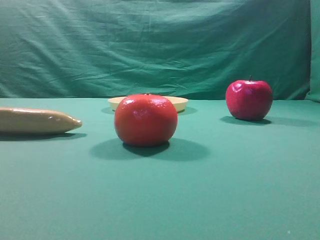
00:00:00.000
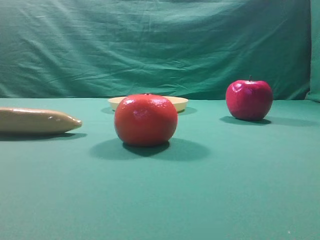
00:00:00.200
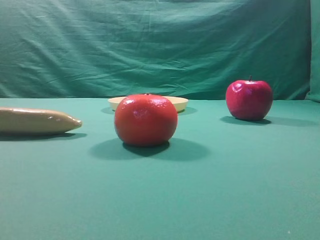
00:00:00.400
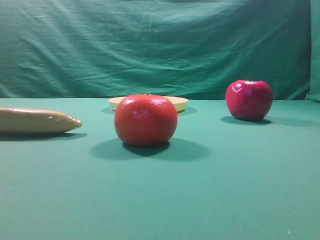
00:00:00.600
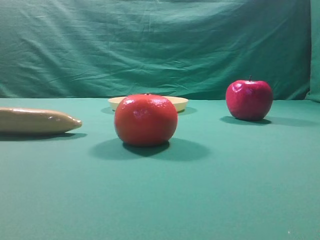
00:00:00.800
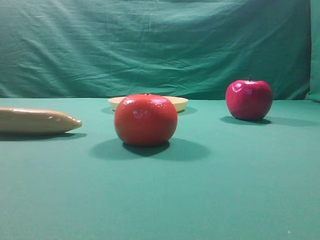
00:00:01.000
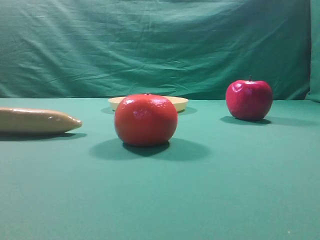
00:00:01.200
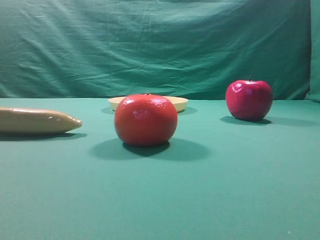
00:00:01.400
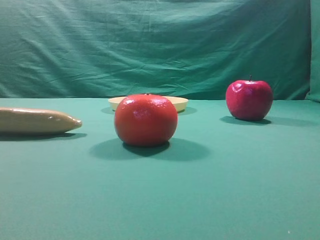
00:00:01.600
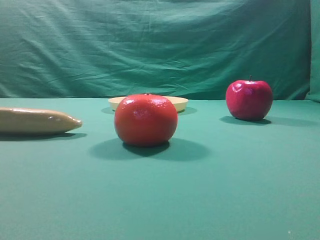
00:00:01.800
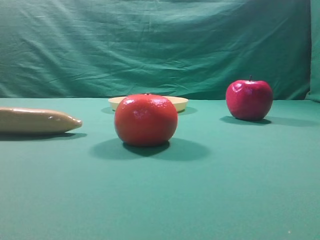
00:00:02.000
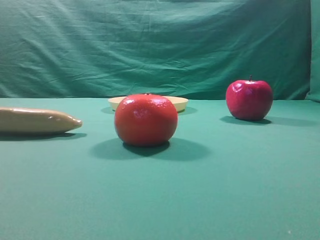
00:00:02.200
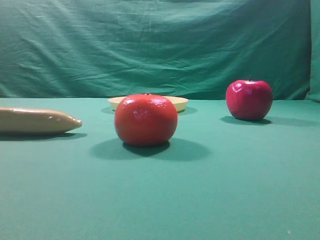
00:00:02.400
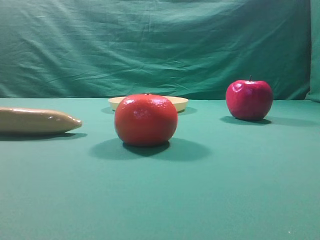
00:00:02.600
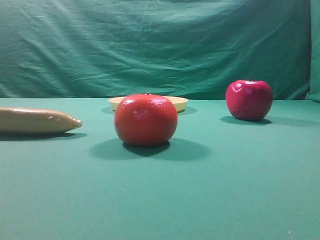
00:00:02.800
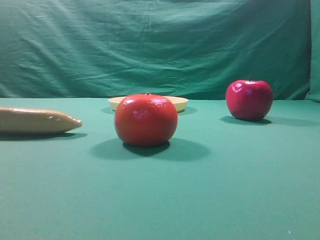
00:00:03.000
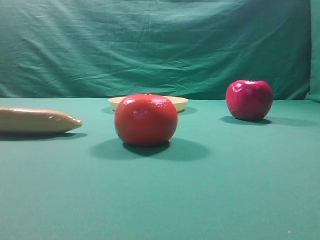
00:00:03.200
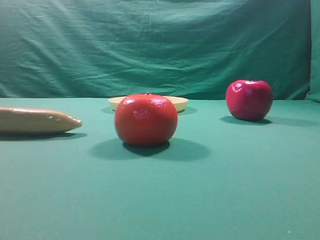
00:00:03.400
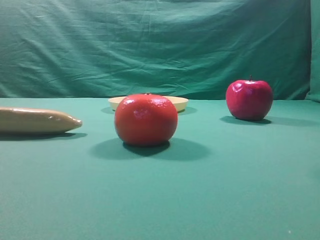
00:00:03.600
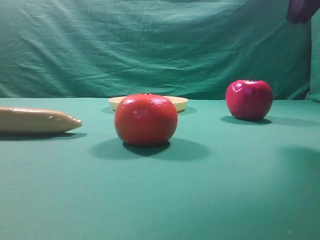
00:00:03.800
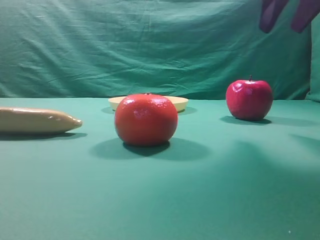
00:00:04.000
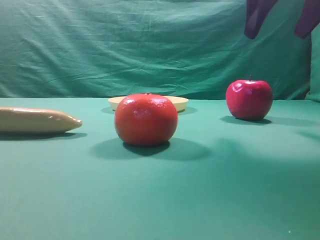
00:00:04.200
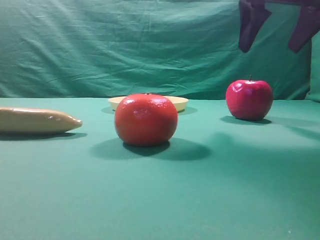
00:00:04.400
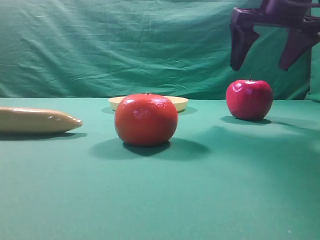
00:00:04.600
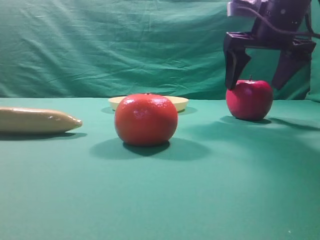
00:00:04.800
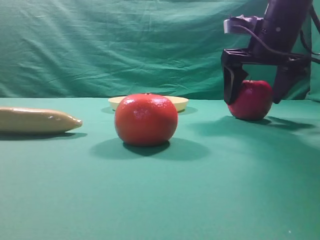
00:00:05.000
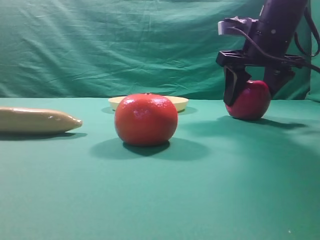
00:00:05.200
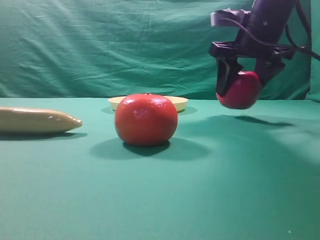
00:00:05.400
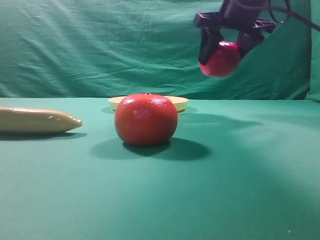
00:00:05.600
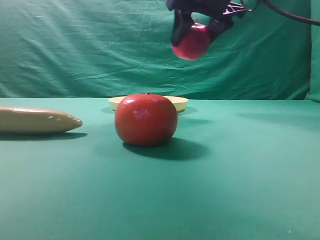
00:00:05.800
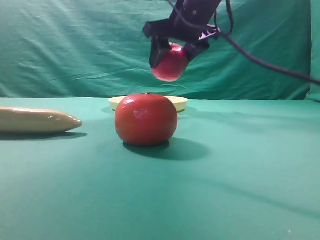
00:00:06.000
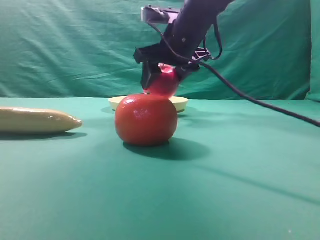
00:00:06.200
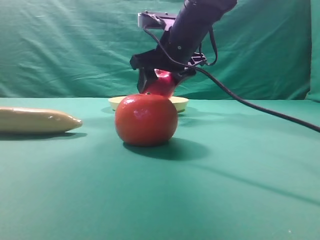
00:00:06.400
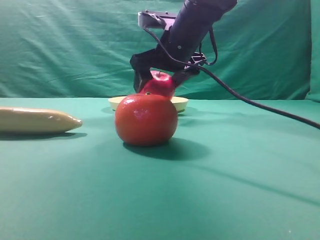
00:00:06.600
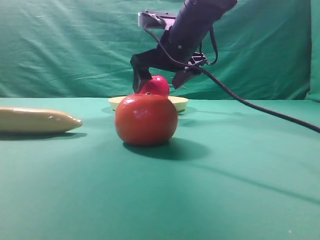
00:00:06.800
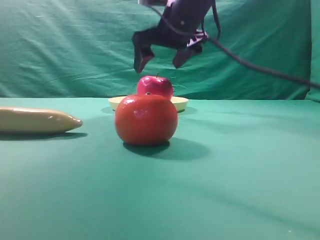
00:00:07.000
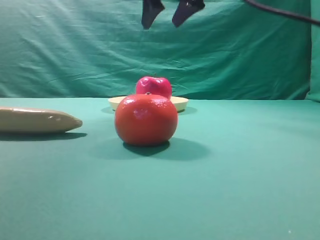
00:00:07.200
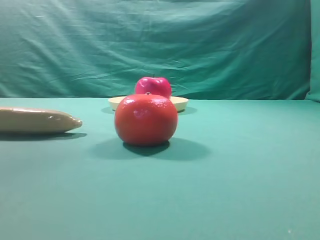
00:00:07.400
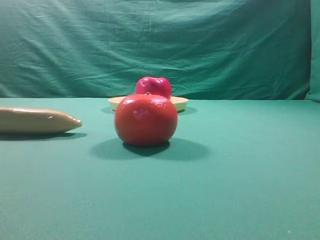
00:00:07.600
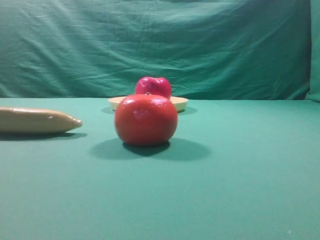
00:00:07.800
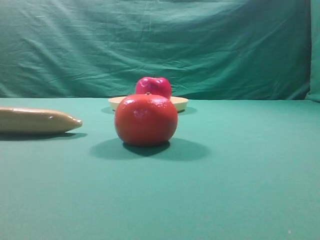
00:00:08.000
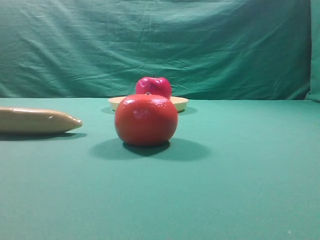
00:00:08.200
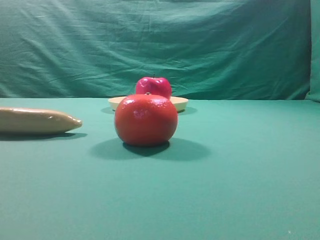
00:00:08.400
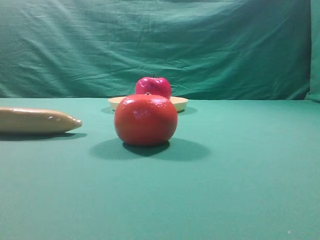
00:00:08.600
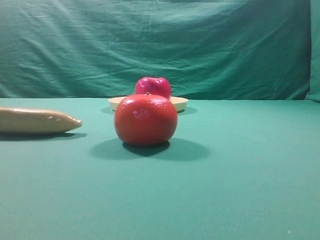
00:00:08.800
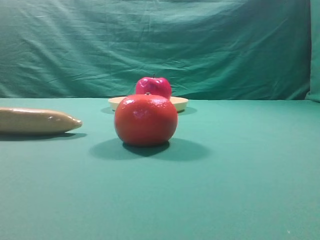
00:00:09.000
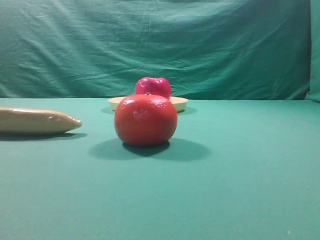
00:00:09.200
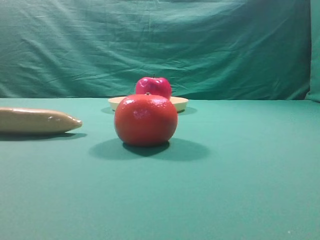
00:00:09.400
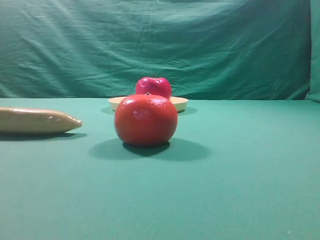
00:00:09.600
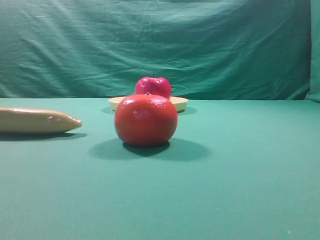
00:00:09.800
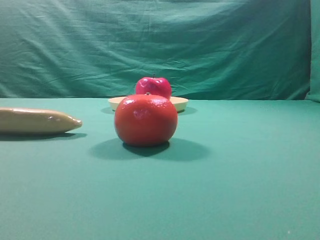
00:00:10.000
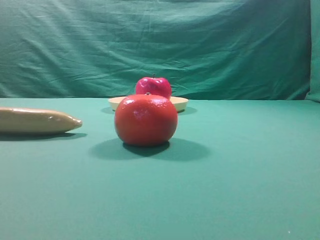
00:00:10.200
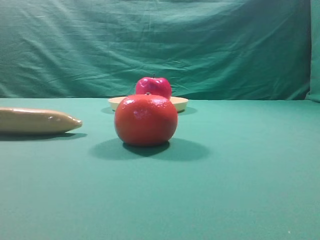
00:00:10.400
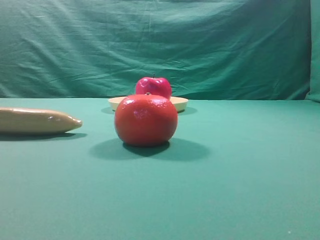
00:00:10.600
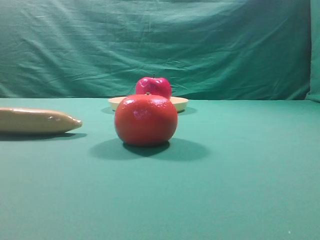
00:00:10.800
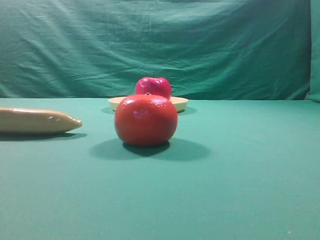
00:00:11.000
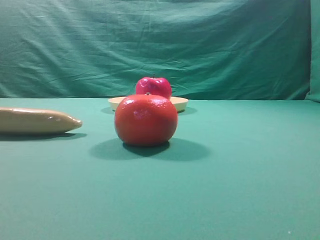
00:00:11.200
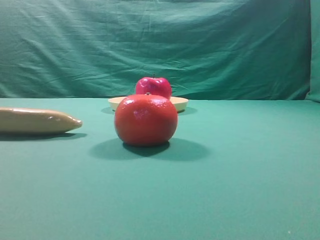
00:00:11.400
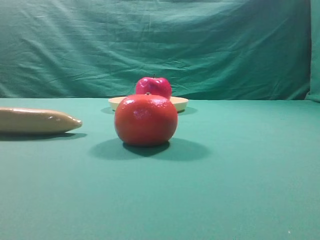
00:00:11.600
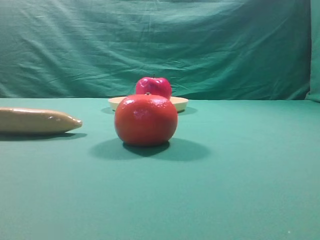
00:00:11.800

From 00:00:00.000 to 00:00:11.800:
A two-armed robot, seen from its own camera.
Task of the whole recording: grasp the apple and place it into the yellow plate.
Step, from 00:00:00.000 to 00:00:05.400: Grasp the fruit that can keep the doctor away.
Step, from 00:00:05.600 to 00:00:07.000: Place the picked object into the yellow plate.

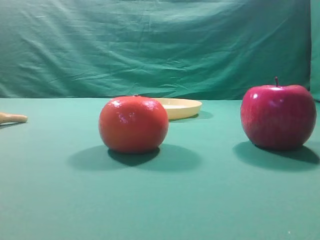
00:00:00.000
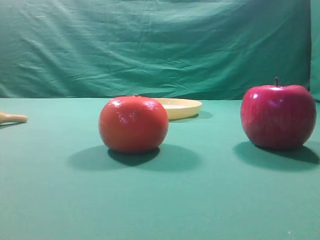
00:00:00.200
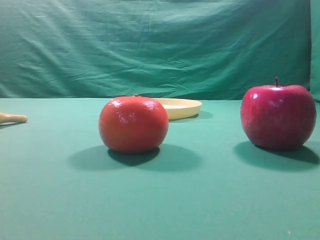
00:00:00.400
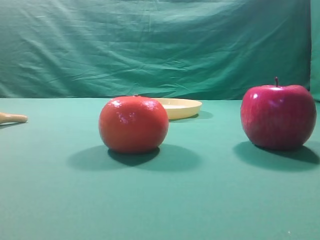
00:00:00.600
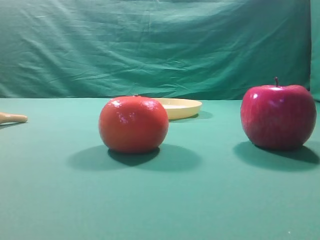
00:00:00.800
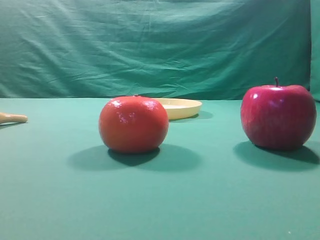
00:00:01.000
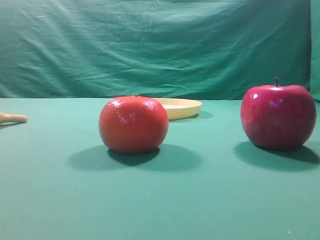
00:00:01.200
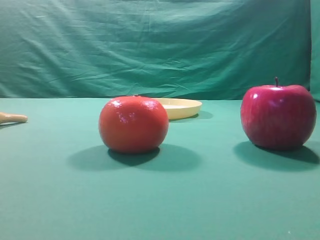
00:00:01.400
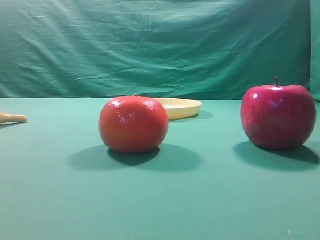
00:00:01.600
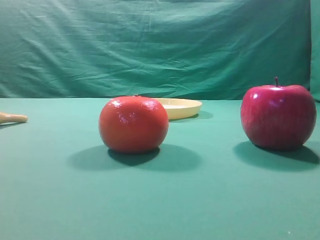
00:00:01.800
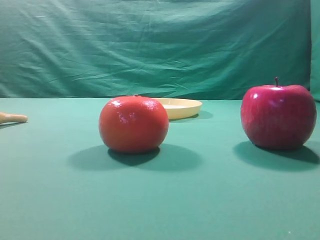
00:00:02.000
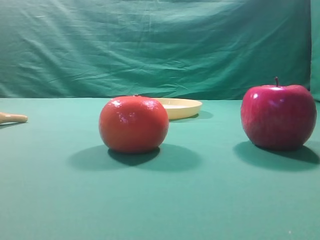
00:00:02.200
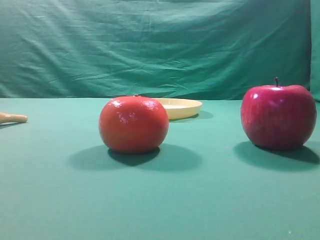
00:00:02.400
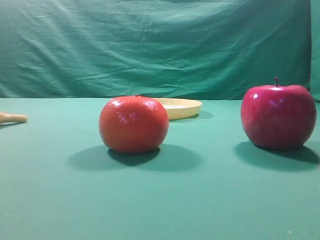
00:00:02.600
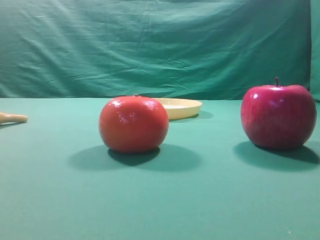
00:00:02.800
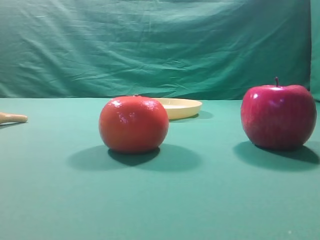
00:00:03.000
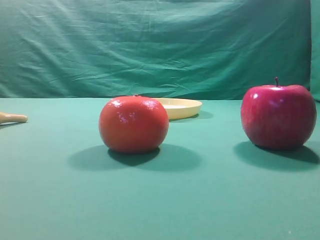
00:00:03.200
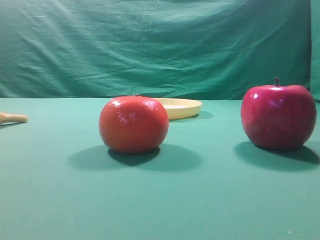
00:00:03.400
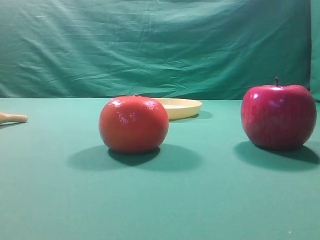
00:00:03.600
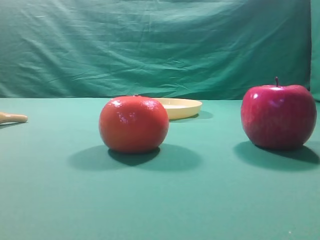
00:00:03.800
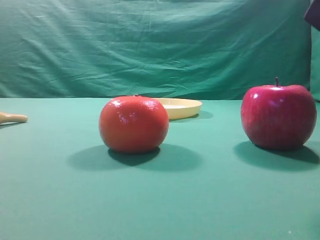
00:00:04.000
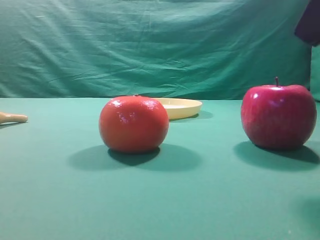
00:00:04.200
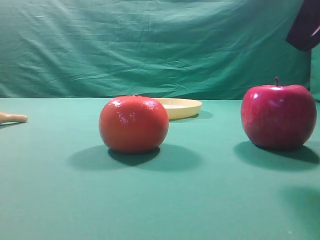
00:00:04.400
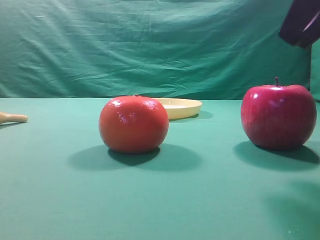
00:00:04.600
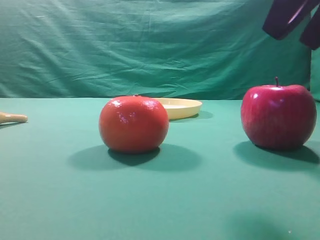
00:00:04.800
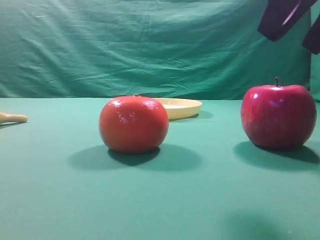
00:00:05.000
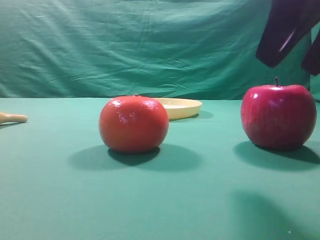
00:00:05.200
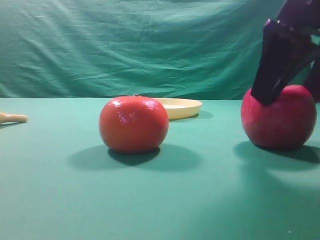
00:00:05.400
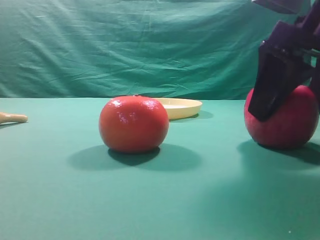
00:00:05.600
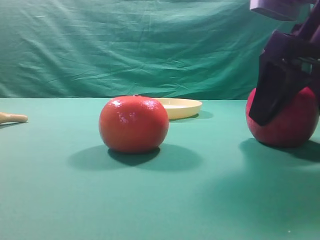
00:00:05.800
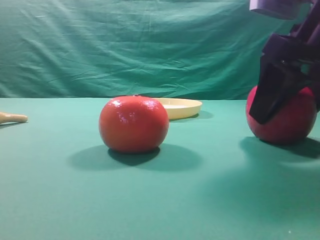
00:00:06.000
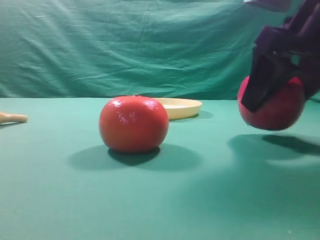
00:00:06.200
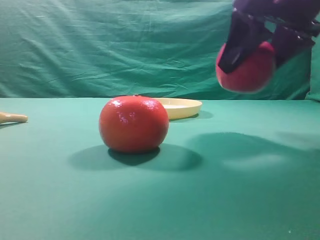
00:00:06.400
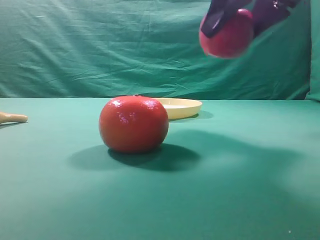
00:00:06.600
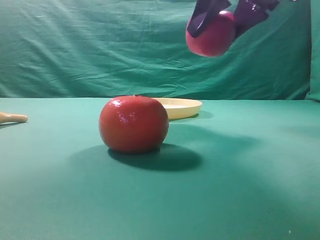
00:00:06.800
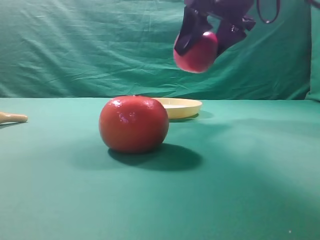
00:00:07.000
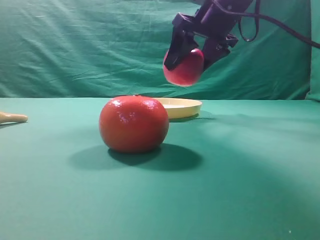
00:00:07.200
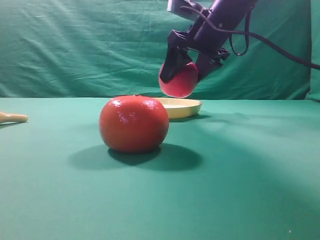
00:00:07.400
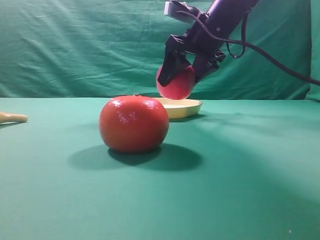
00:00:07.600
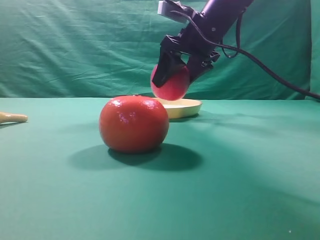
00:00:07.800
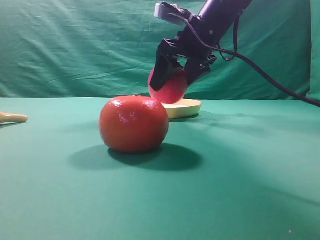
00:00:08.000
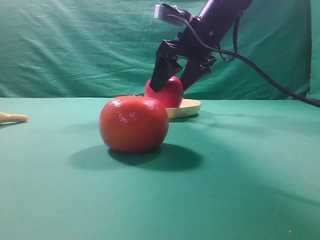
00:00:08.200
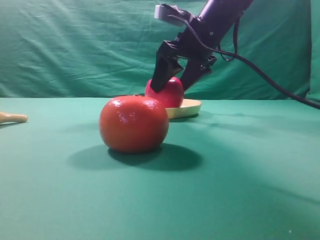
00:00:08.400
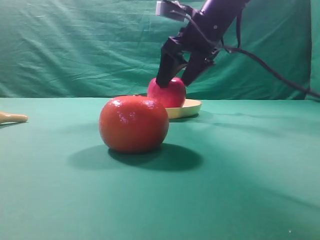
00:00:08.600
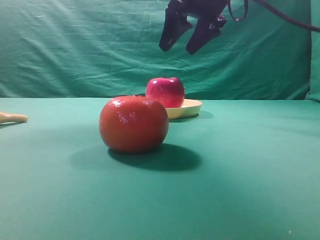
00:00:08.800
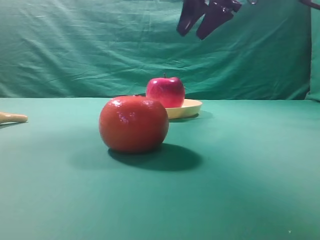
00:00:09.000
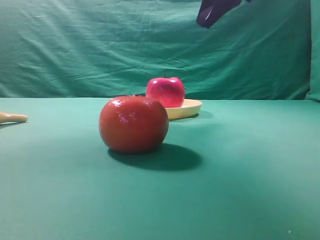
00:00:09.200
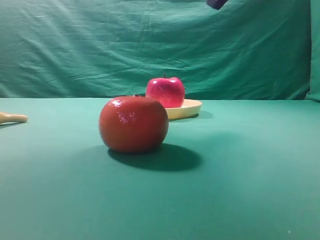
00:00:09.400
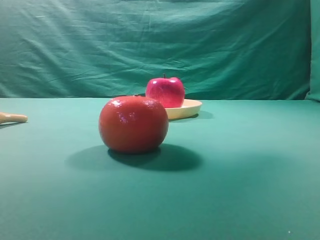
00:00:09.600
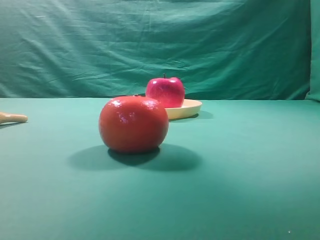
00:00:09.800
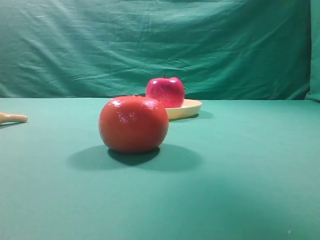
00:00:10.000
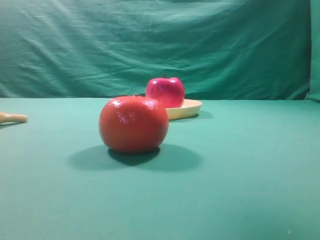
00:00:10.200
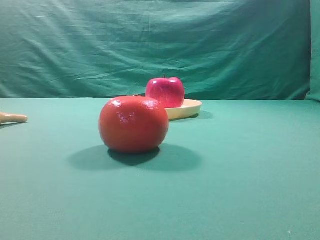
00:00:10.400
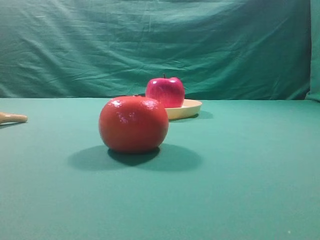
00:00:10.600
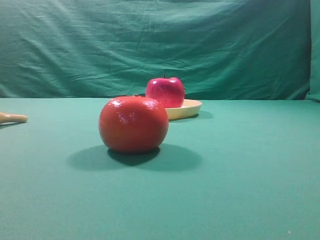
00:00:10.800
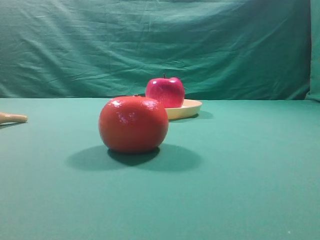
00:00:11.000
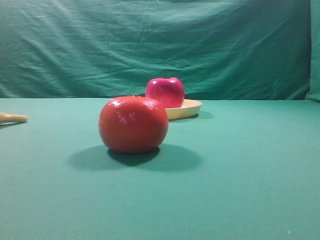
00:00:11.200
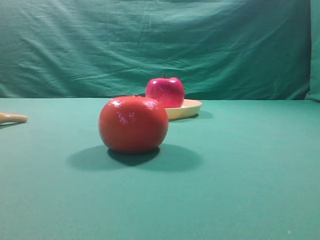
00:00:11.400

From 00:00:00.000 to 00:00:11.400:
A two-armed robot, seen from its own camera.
Task of the whole recording: grasp the apple and place it into the yellow plate.
Step, from 00:00:00.000 to 00:00:06.200: Grasp the fruit that can keep the doctor away.
Step, from 00:00:06.400 to 00:00:08.800: Place the picked object into the yellow plate.
